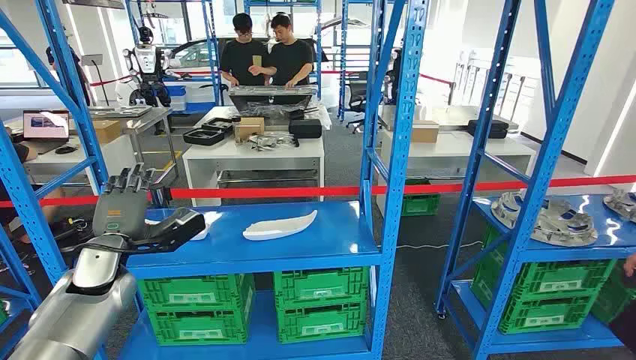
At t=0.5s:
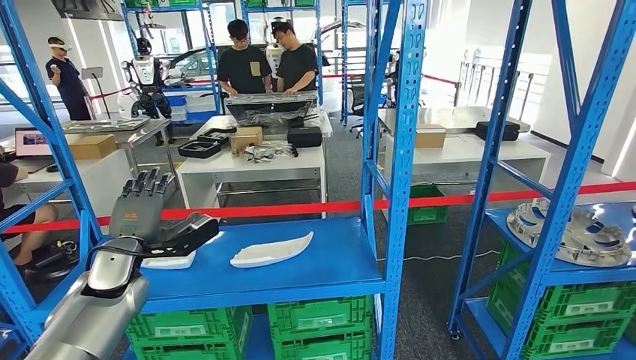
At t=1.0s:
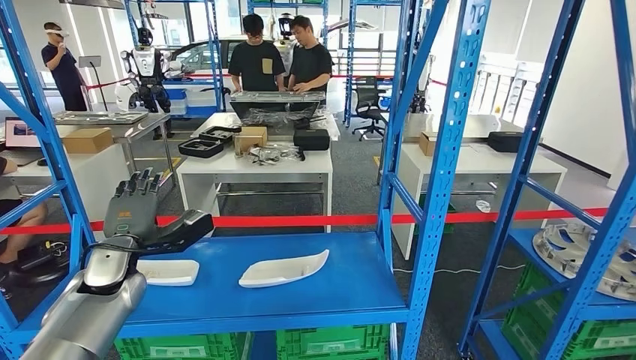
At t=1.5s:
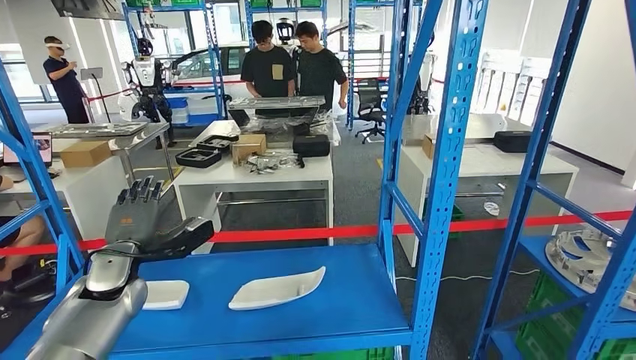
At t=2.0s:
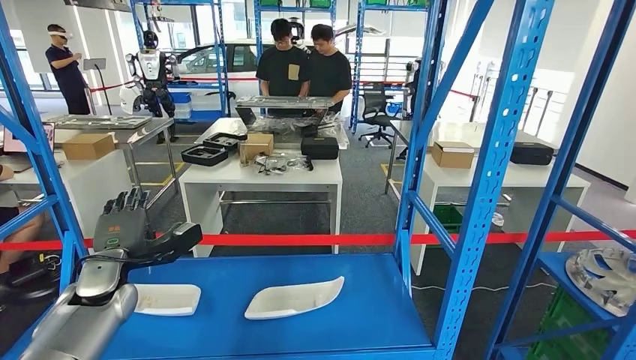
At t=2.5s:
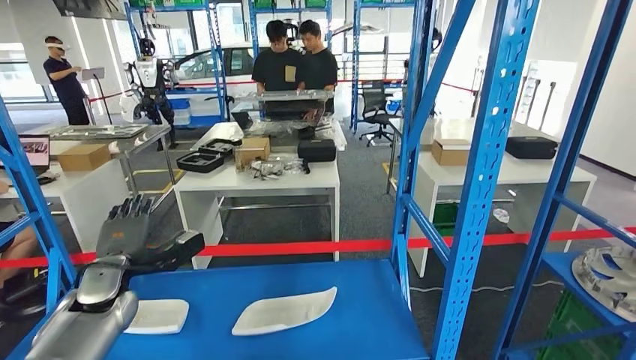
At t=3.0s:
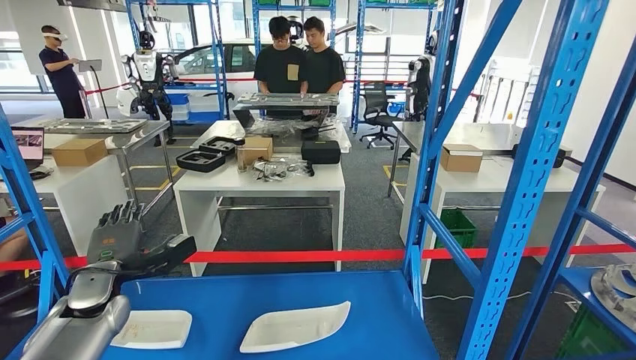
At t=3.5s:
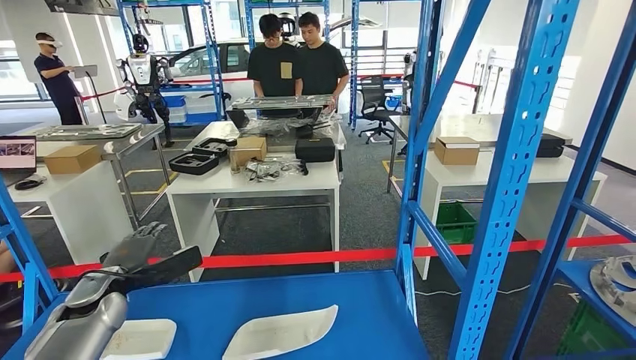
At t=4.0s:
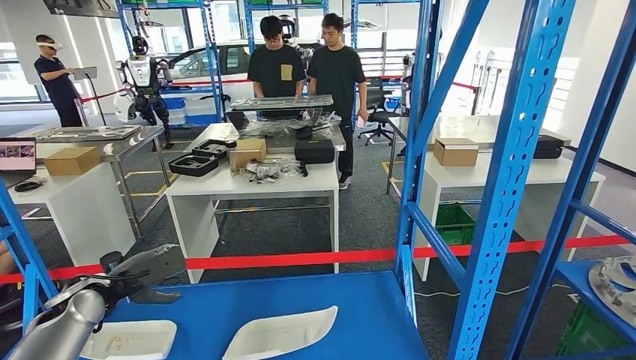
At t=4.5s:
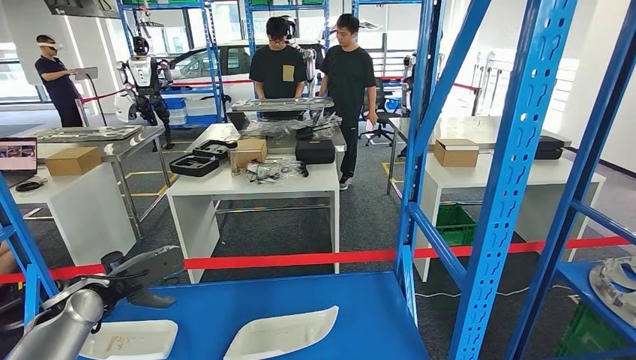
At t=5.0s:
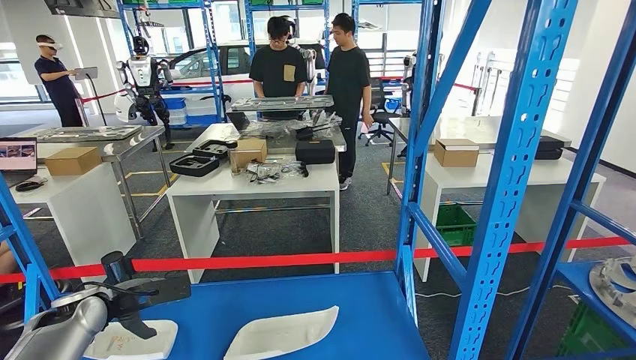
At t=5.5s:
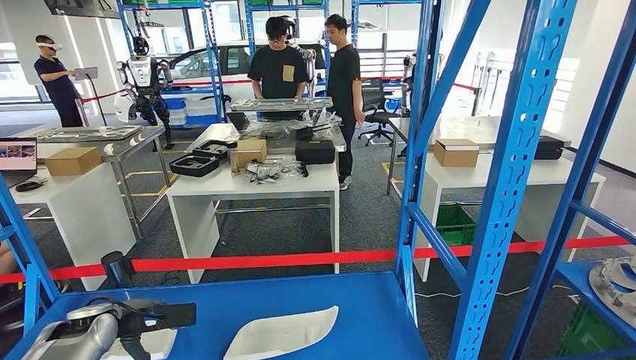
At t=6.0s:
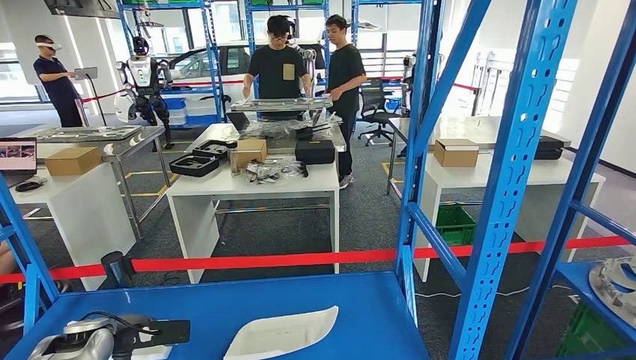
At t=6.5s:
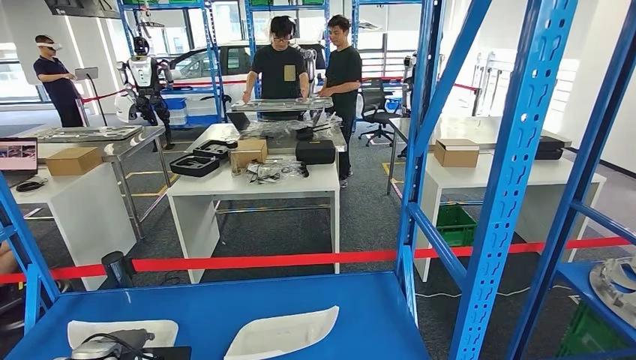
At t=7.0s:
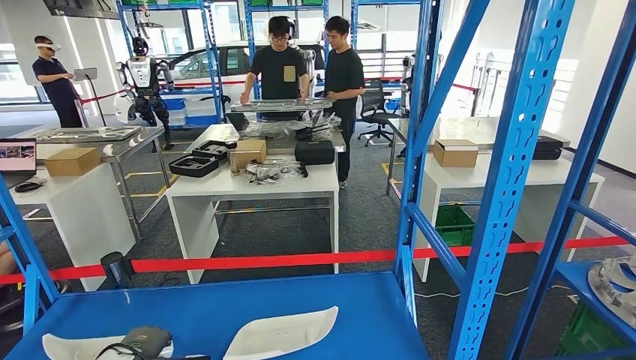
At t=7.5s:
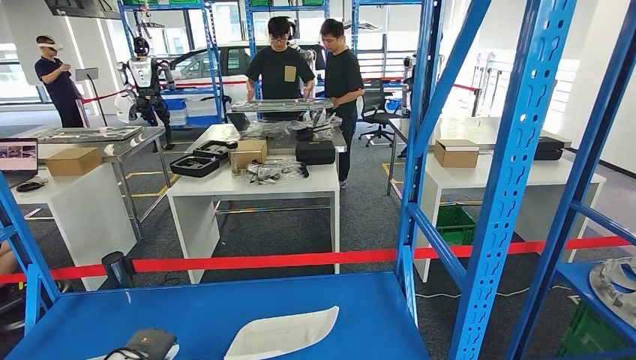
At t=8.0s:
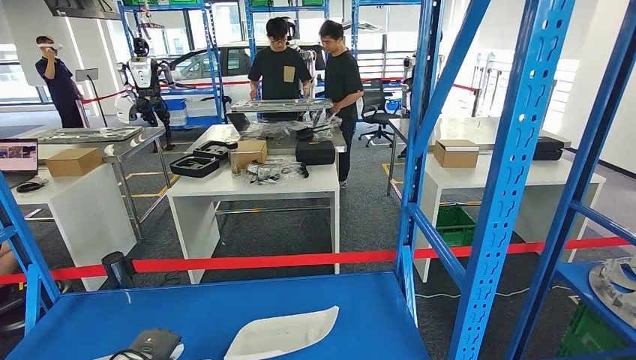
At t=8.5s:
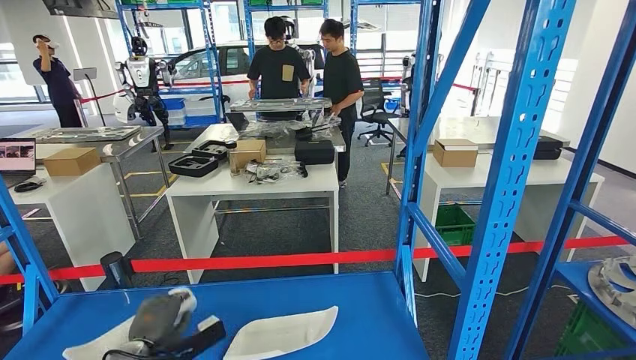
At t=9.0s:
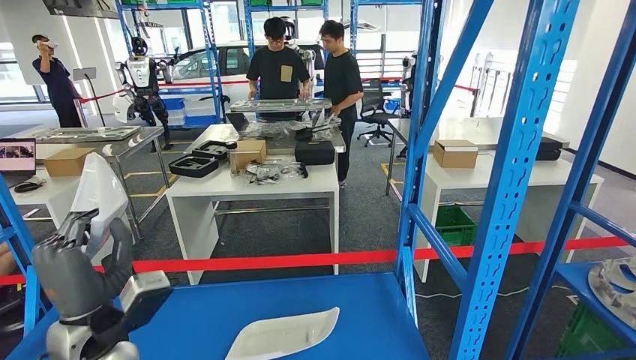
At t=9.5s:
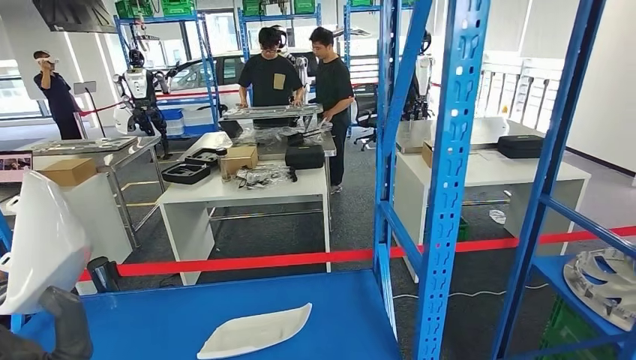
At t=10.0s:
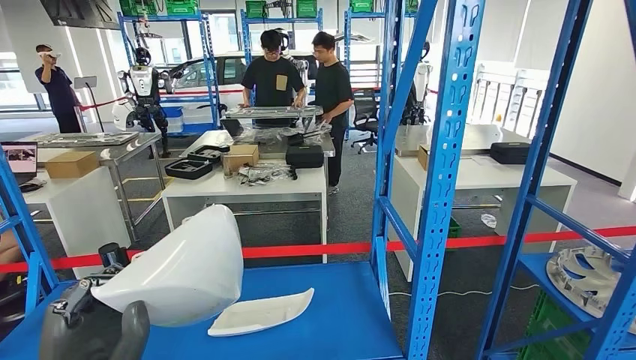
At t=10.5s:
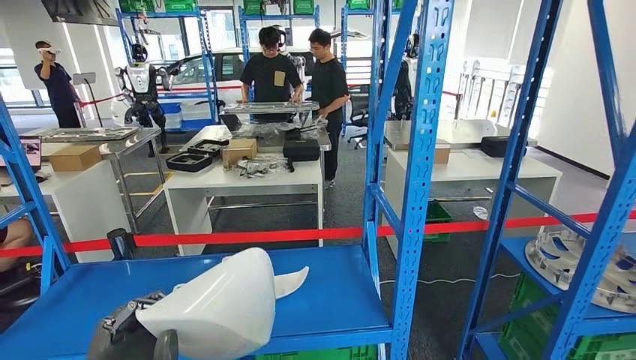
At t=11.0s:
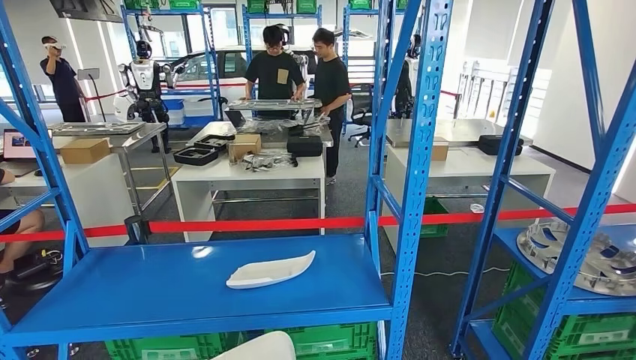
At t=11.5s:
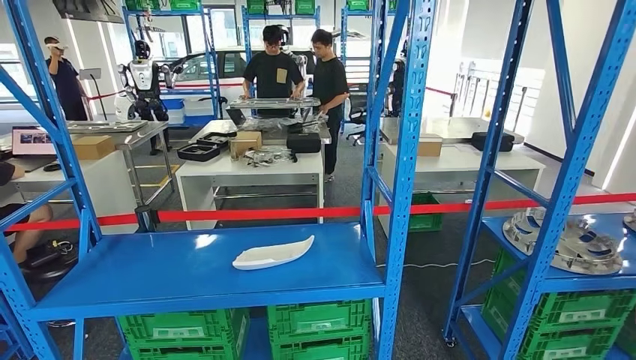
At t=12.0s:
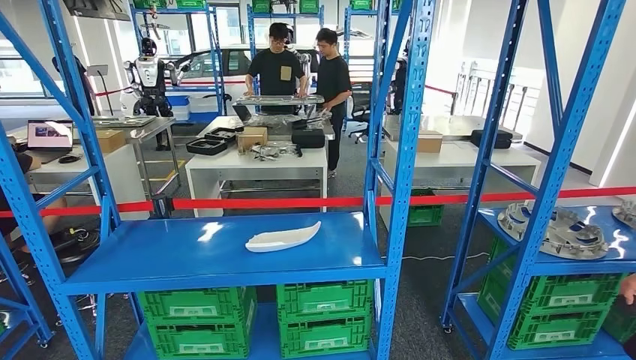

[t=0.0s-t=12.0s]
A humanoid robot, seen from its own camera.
Step, t=0.0s to t=9.5s: Pick up the small parts from the shelf.
t=4.0s to t=6.0s: The left hand goes approximately 5 cm downward.
t=6.0s to t=8.0s: The left hand heads downward, covering roughly 5 cm.

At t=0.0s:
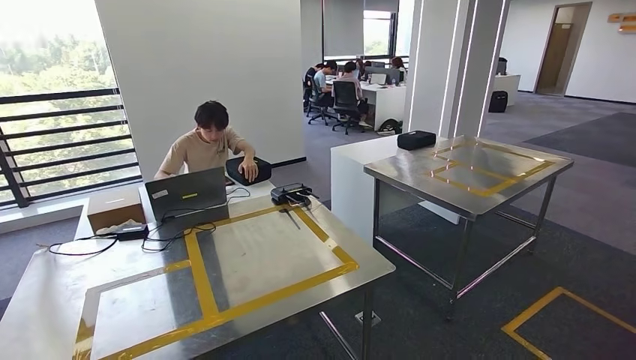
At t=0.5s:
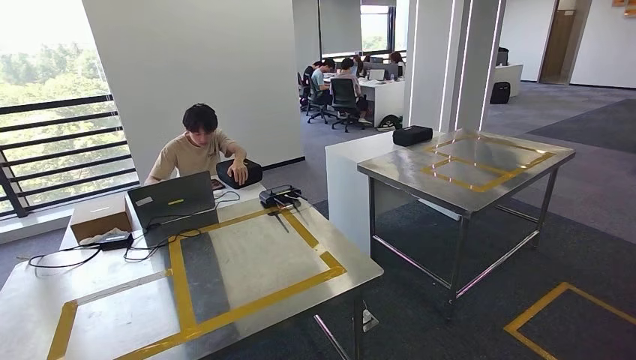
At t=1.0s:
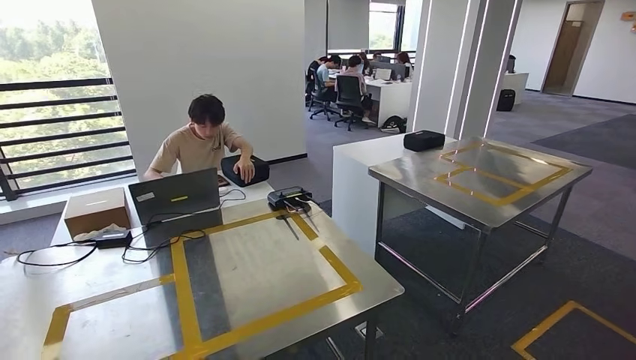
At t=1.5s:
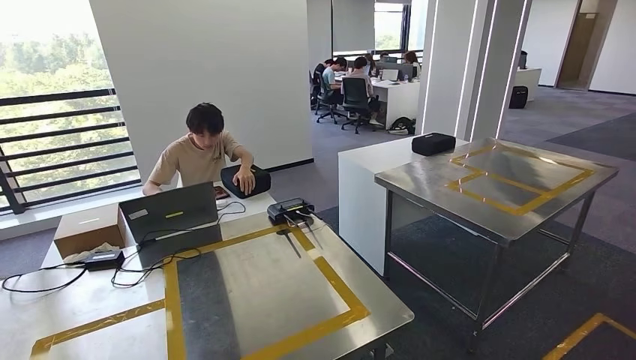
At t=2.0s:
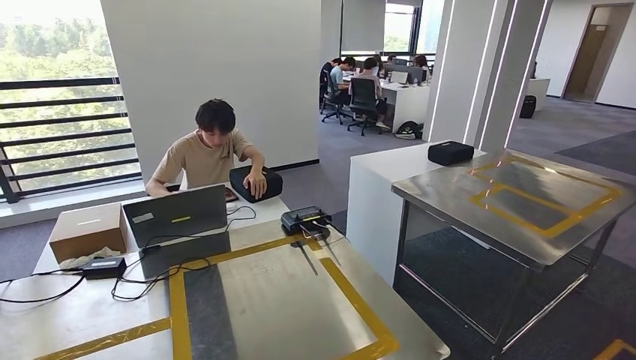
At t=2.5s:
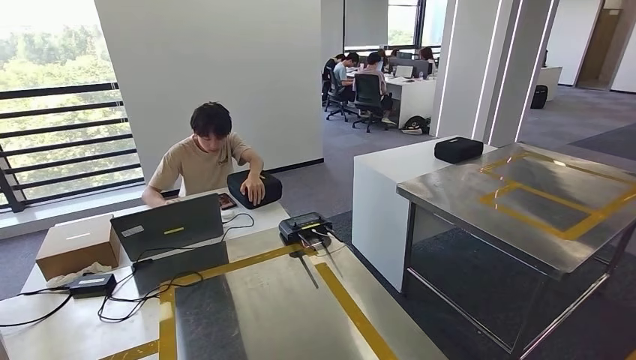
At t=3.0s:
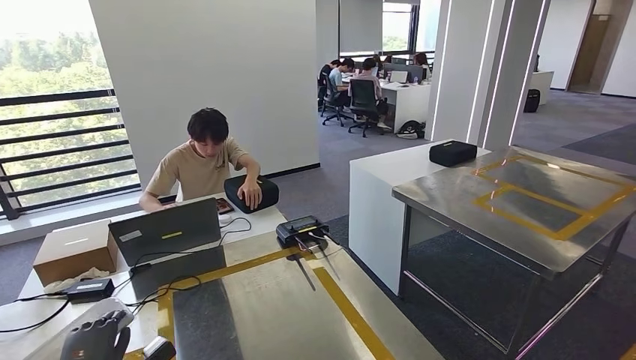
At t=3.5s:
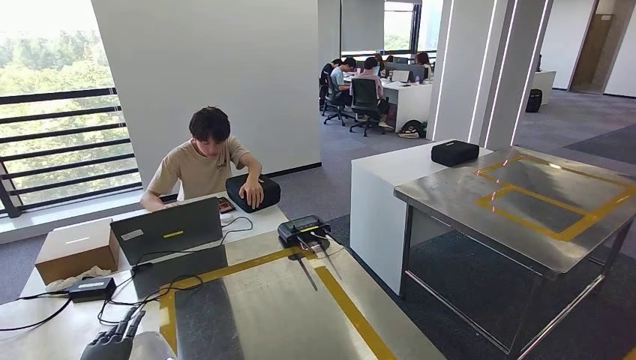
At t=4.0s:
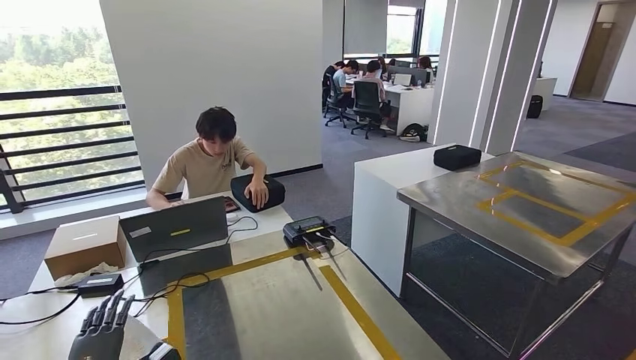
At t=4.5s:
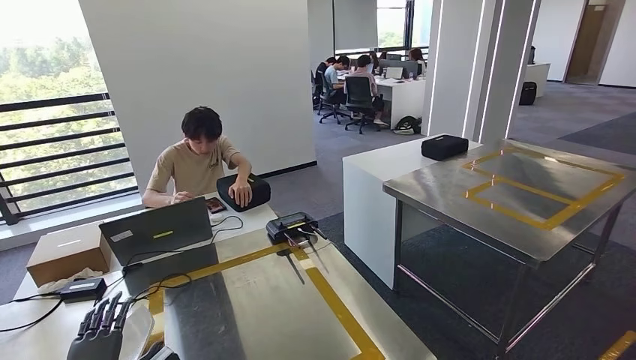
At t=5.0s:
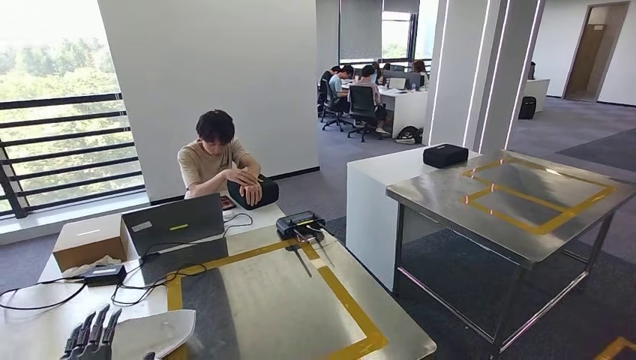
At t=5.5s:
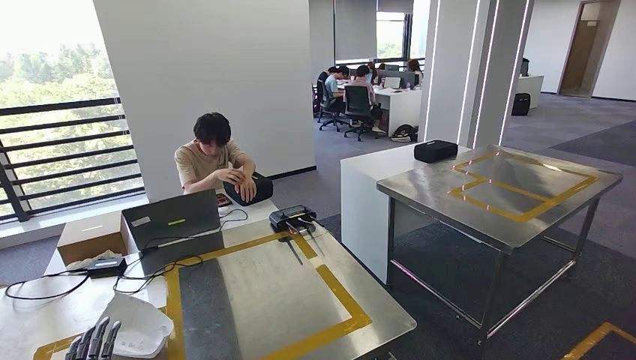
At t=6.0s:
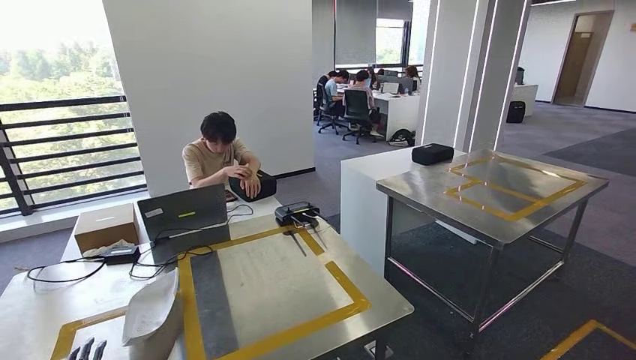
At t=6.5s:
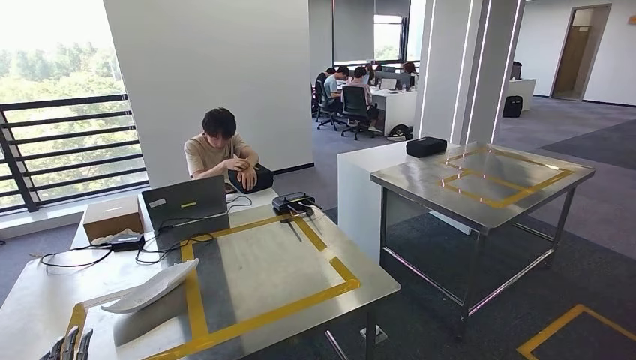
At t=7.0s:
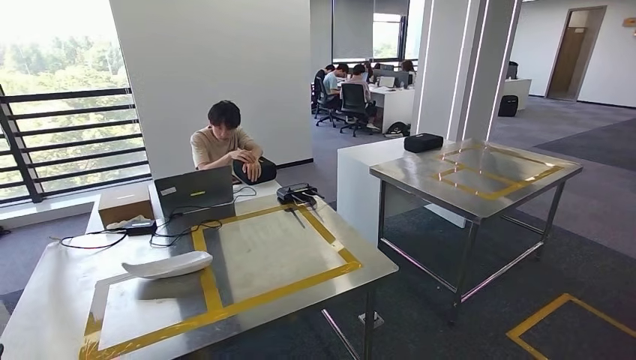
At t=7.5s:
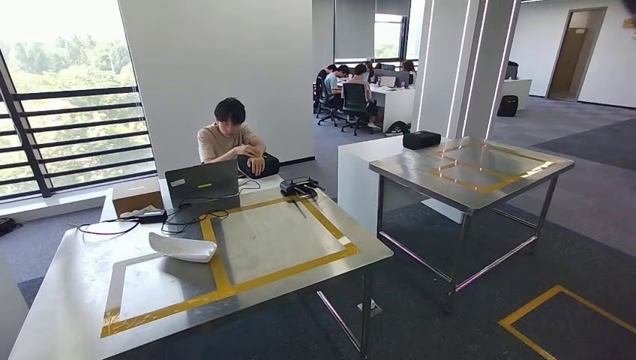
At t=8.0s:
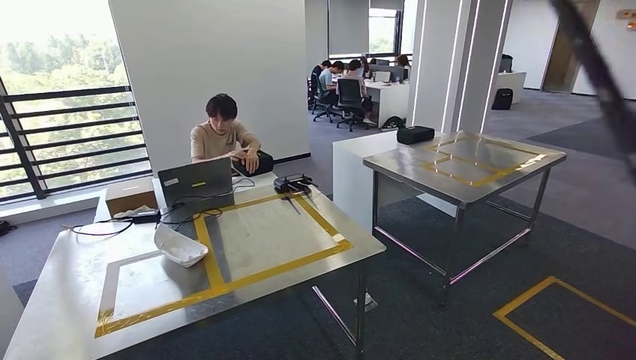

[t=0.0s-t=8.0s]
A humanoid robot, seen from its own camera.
Step, t=0.0s to t=4.0s: Insert the small parts into the corresponding slots on the workbench.
Step, t=5.0s to t=8.0s: Return to the initial position at the workbench.
